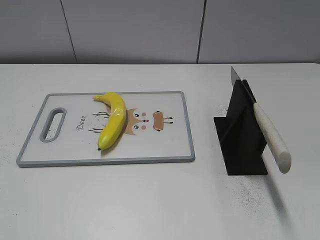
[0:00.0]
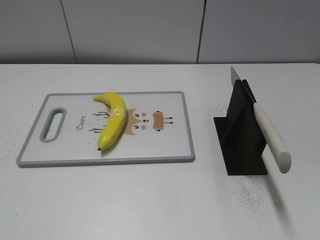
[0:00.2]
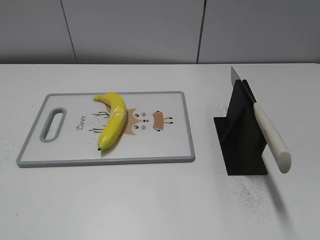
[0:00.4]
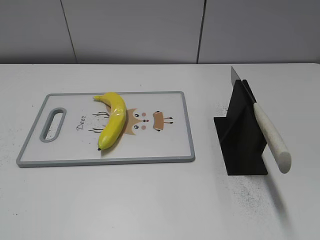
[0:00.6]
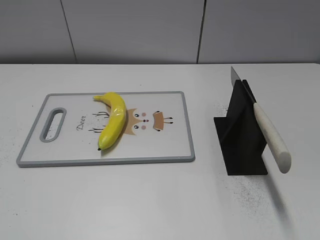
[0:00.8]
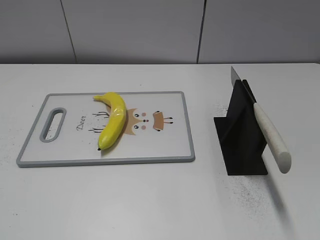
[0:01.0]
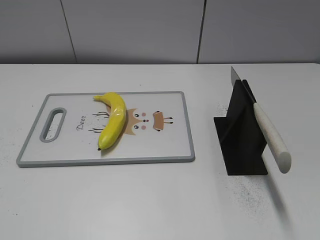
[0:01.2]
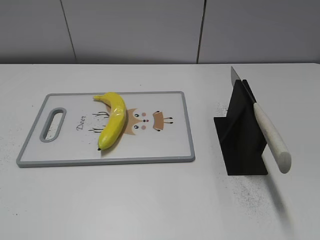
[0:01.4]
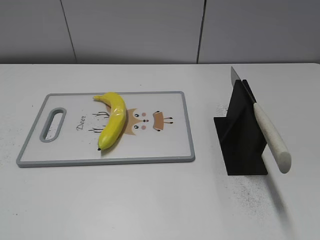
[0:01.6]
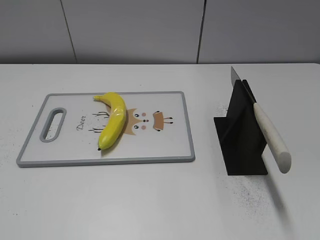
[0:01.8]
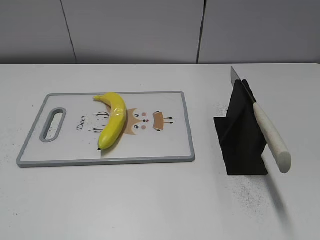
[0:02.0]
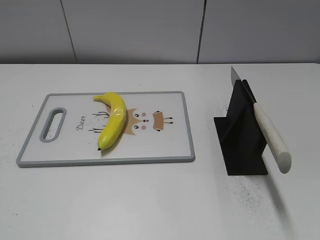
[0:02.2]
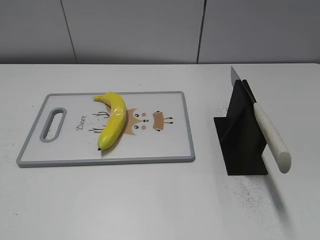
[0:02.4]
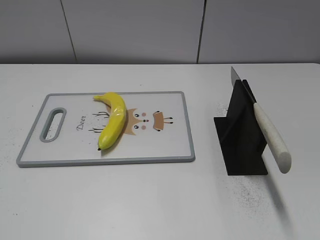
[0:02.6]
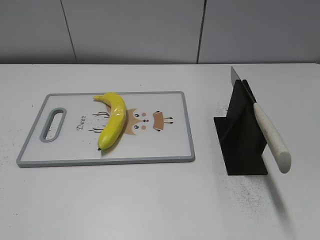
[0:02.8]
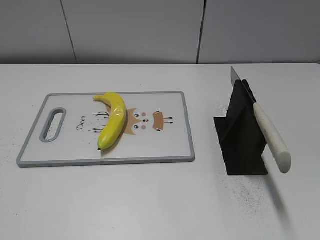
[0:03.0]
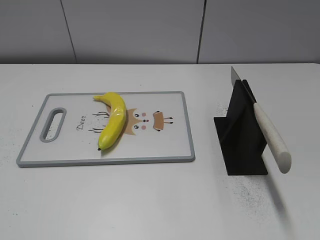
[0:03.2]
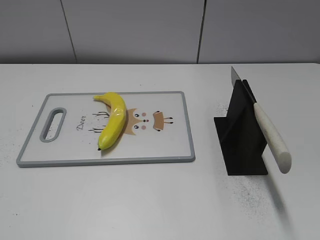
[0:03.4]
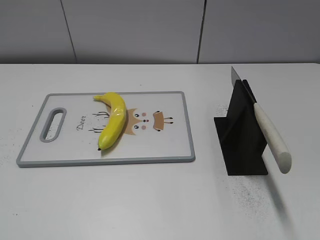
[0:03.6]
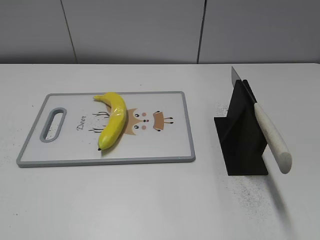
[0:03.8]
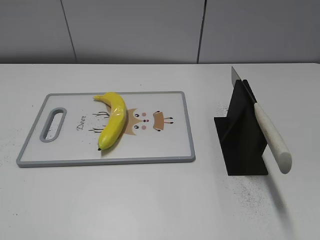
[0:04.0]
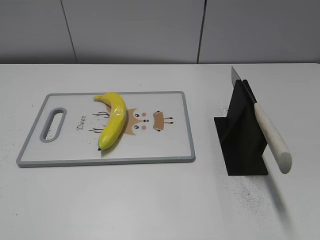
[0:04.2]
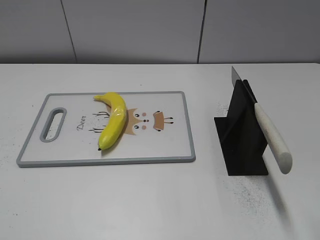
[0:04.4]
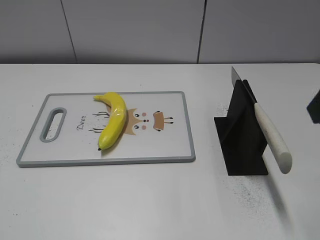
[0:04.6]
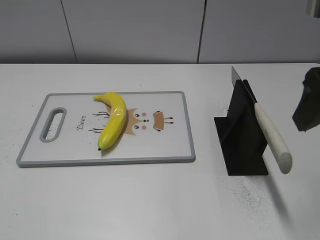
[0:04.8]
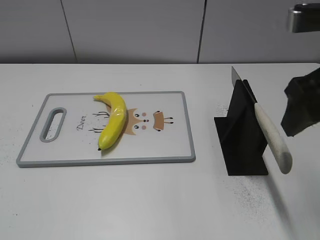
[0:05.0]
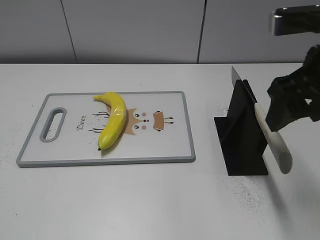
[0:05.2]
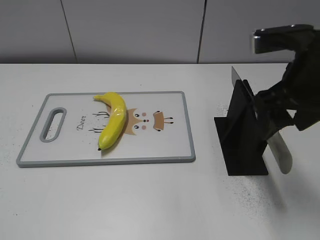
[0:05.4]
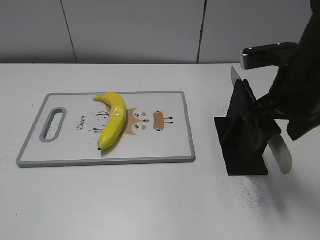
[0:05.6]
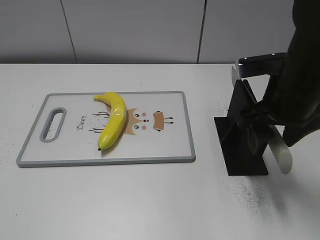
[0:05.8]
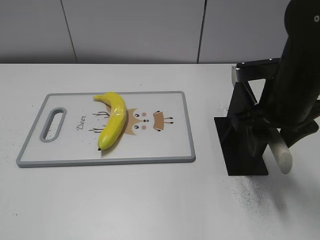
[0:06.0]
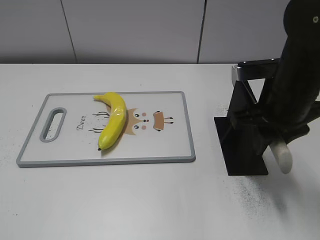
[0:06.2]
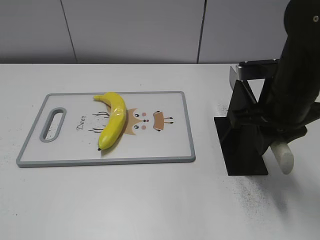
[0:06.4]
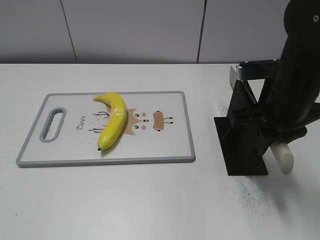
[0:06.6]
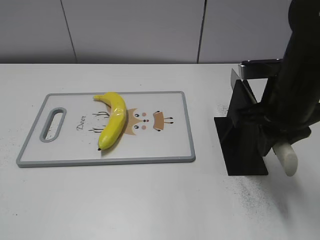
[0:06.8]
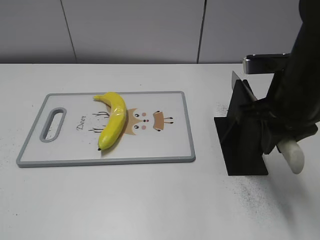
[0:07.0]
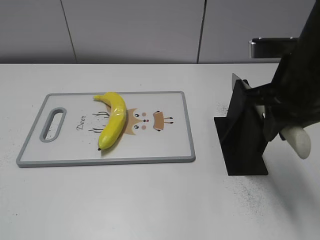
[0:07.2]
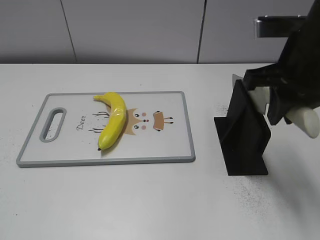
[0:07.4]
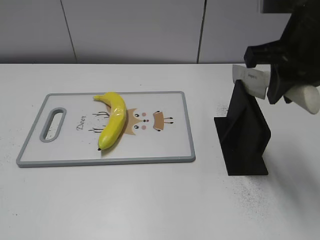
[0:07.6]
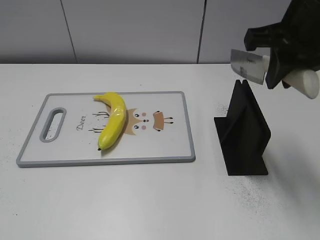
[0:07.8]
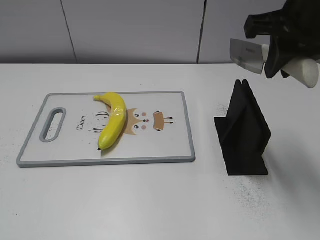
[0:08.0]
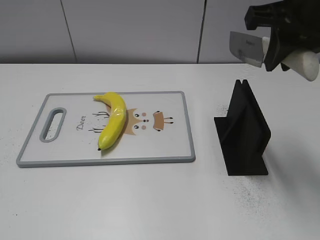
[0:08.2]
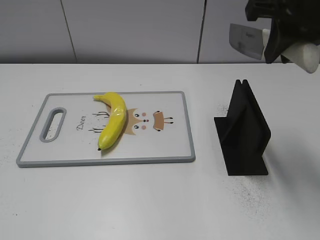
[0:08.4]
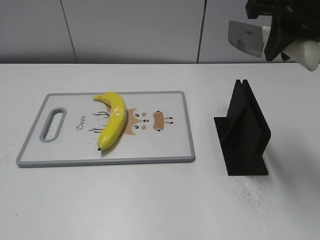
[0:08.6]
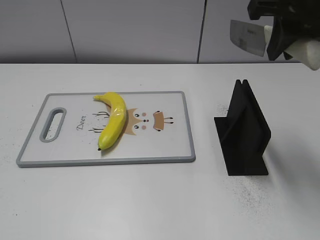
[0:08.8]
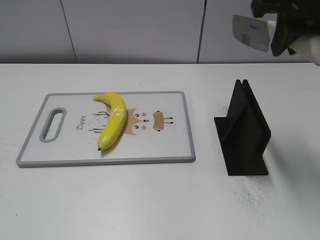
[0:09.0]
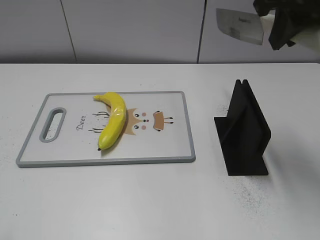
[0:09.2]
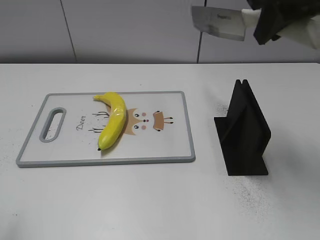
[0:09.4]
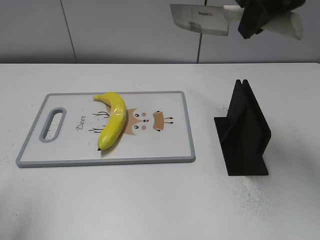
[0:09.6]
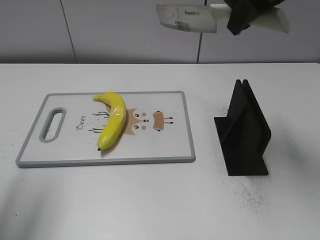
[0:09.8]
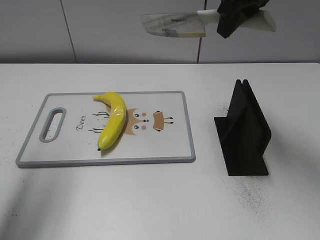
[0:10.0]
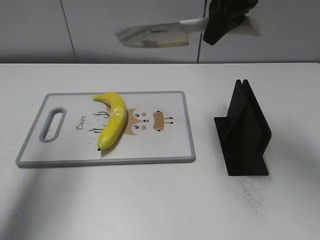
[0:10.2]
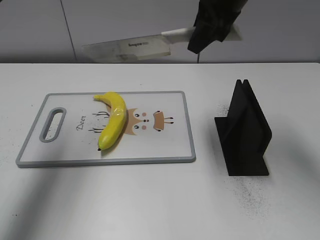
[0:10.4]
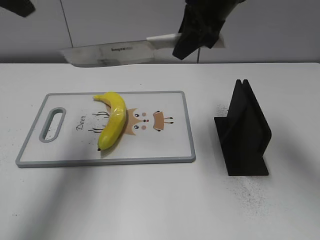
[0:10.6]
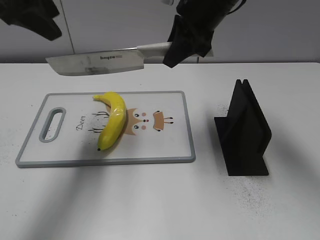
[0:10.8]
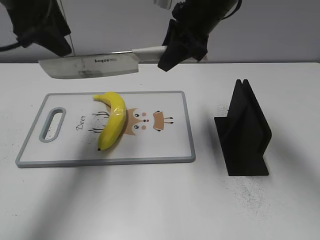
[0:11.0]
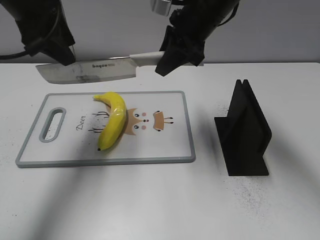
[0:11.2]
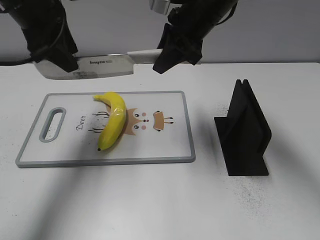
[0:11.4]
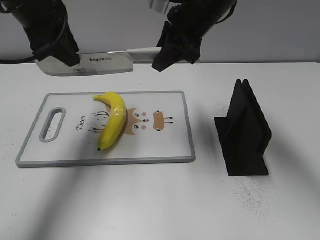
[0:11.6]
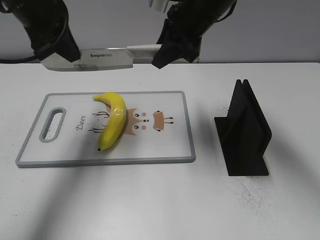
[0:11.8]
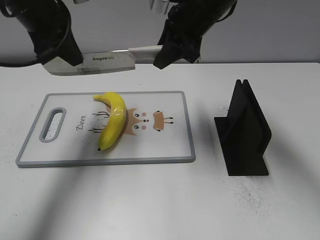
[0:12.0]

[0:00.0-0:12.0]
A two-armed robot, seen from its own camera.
Task of the whole recording: cut plastic banana.
Step, 0:00.0 to 0:07.8: Grab the knife handle with your right hand.
0:04.4 to 0:06.0: The right gripper travels downward, forward and to the left by some 20 cm.
0:06.0 to 0:07.6: The right gripper moves upward, roughly 10 cm, and closes up.
0:07.6 to 0:09.0: The right gripper heads upward, covering some 5 cm.
0:09.0 to 0:10.4: The right gripper heads forward and to the left, covering about 10 cm. Meanwhile the left gripper heads forward and upward, covering approximately 30 cm.
0:10.4 to 0:12.0: The left gripper moves downward, to the right and forward, about 15 cm, and closes its fingers. The right gripper shifts roughly 5 cm downward.

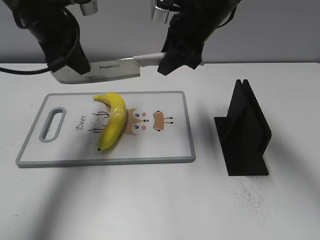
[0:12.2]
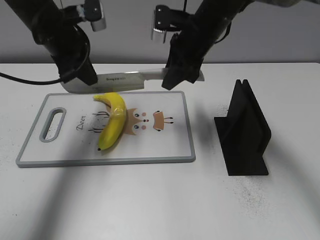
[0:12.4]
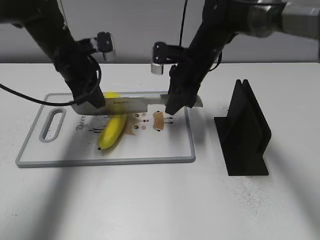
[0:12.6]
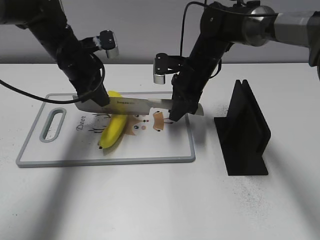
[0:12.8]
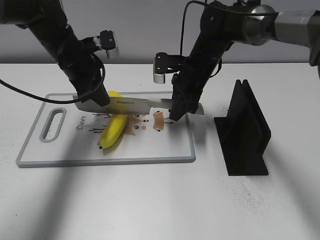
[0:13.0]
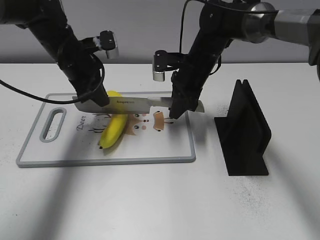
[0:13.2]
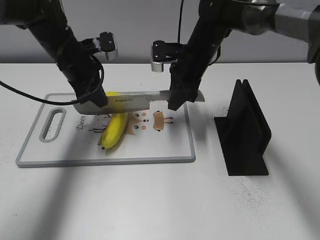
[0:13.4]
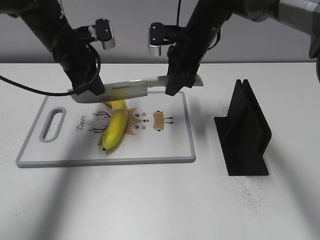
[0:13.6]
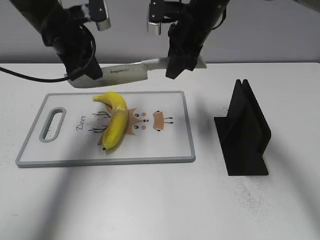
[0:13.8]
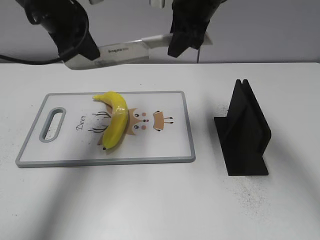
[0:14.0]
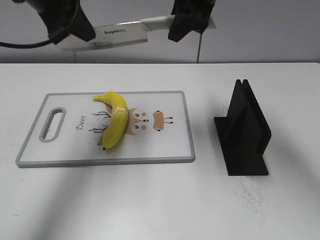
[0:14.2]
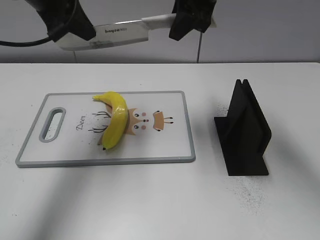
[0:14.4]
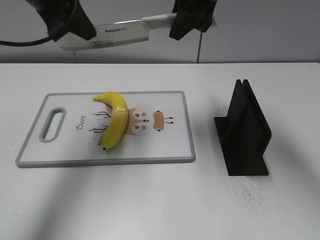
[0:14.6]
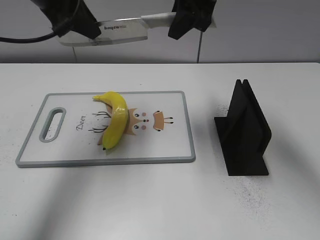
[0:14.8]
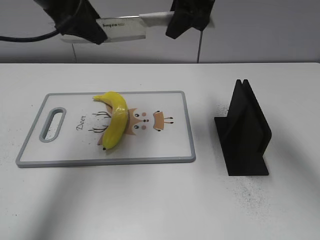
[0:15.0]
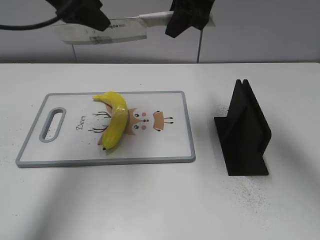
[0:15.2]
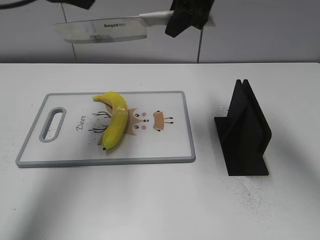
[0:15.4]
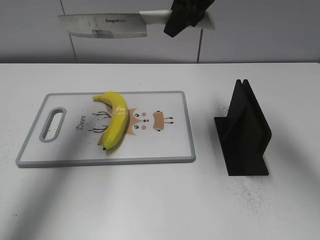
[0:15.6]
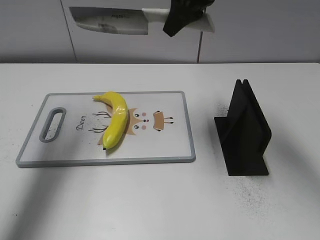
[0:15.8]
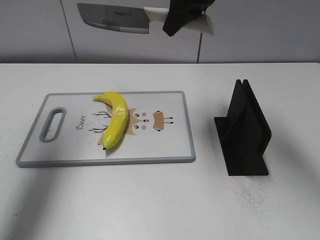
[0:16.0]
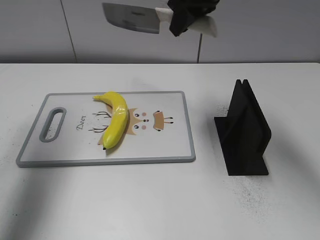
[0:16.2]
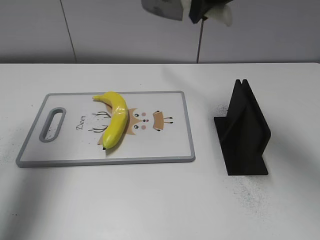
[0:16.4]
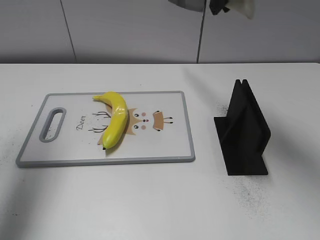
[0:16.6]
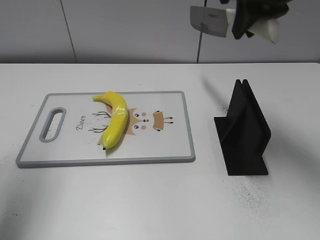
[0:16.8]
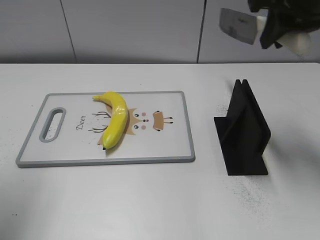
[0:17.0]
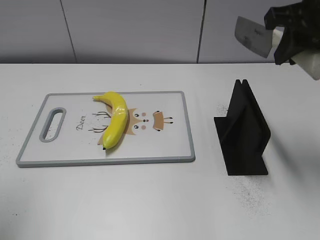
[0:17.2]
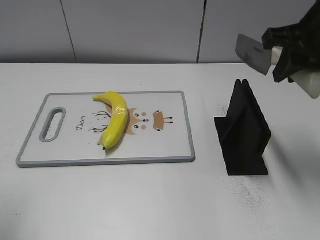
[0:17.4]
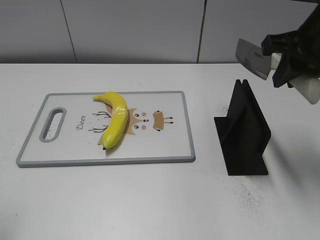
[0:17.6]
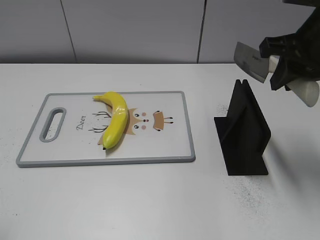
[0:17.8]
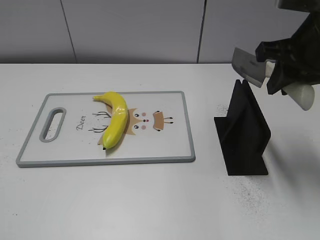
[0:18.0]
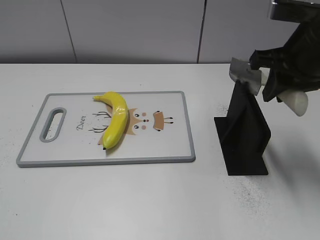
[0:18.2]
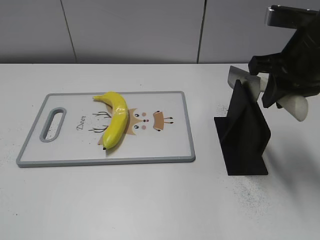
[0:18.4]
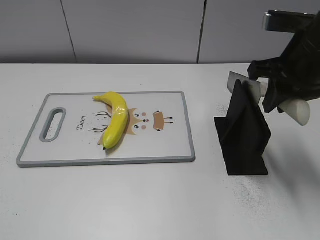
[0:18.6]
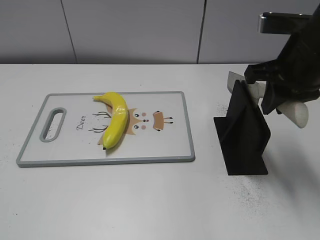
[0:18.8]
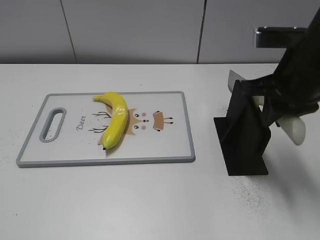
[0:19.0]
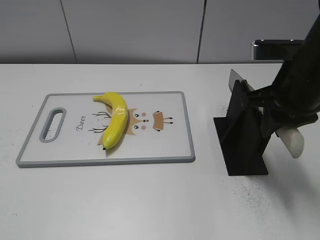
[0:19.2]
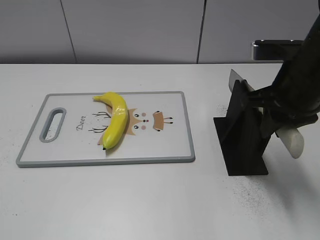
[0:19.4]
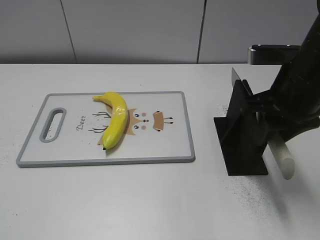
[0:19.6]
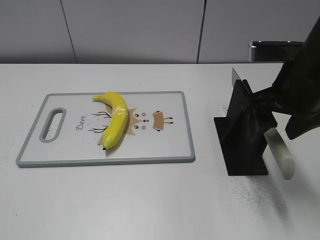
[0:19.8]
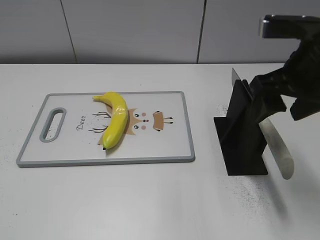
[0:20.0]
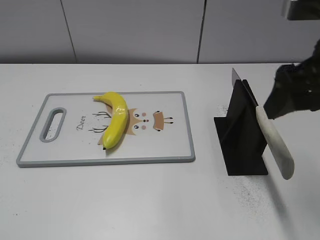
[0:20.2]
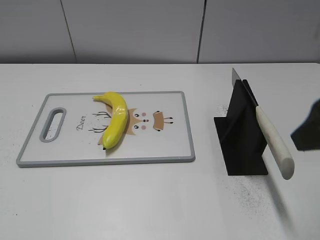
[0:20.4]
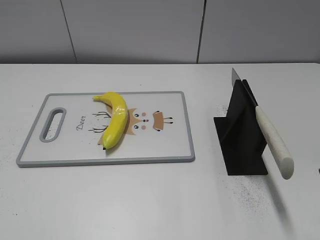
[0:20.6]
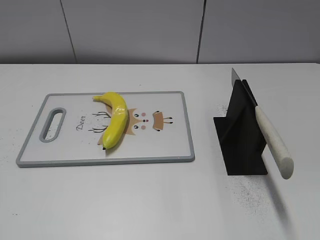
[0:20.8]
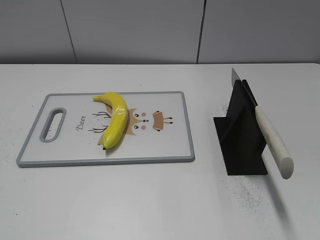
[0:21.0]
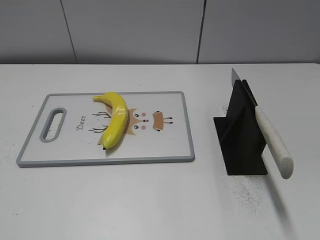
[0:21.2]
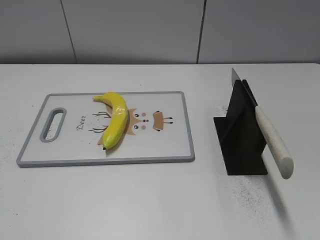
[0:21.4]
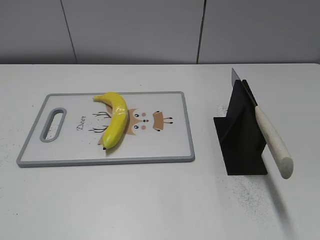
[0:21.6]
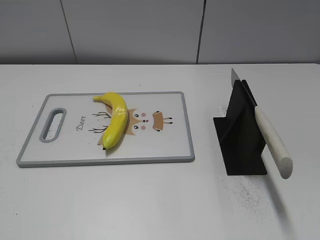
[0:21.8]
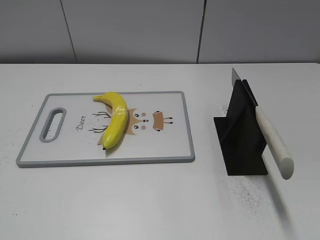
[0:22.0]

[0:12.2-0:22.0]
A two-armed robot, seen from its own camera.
Task of the whole recording: cut plastic banana.
Step, 0:12.2 to 0:14.6: Lift the knife with your right hand.
Step, 0:15.0 to 0:16.6: Cut the banana with your left hand.
Step, 0:16.8 to 0:18.0: Lift the knife with your right hand.
0:12.2 to 0:13.6: The grippers both shift downward by approximately 10 cm.
0:13.6 to 0:15.0: The grippers both shift upward by some 15 cm. The left gripper opens.
0:15.0 to 0:16.4: The left gripper heads to the left and upward, covering about 15 cm.
0:16.4 to 0:17.8: The left gripper travels backward and downward by some 25 cm. Meanwhile the right gripper is displaced backward and to the right by approximately 15 cm.
0:17.8 to 0:19.2: The right gripper travels downward by approximately 5 cm.
0:19.2 to 0:20.6: The right gripper goes some 15 cm backward, and opens its fingers.
